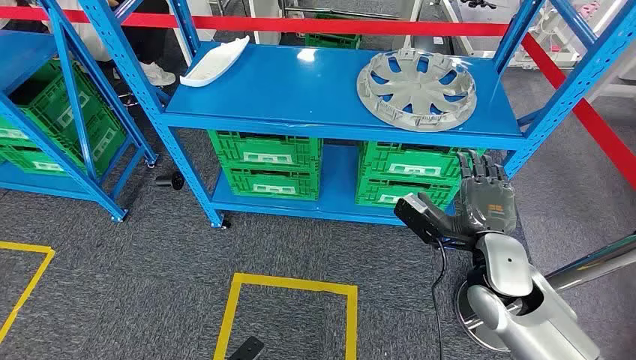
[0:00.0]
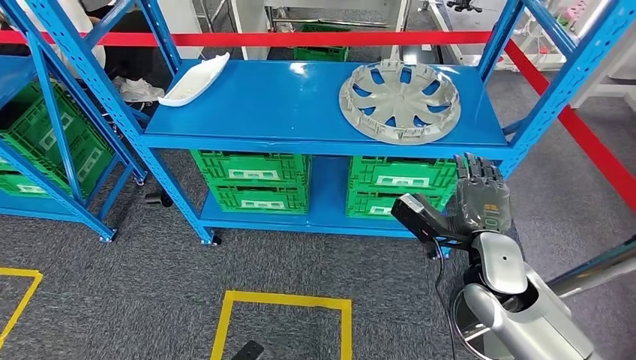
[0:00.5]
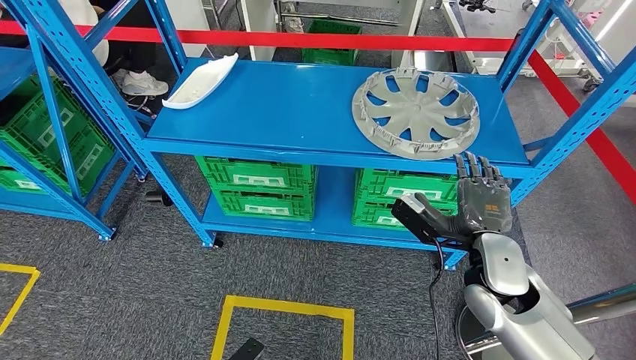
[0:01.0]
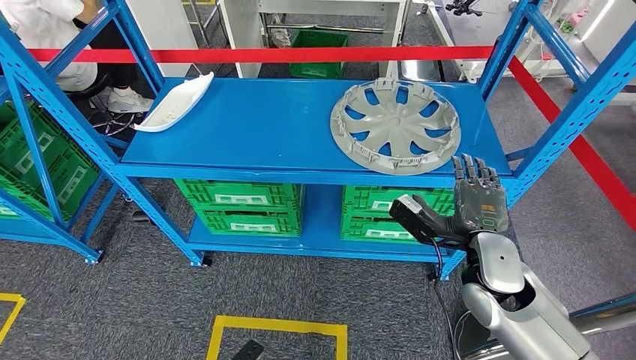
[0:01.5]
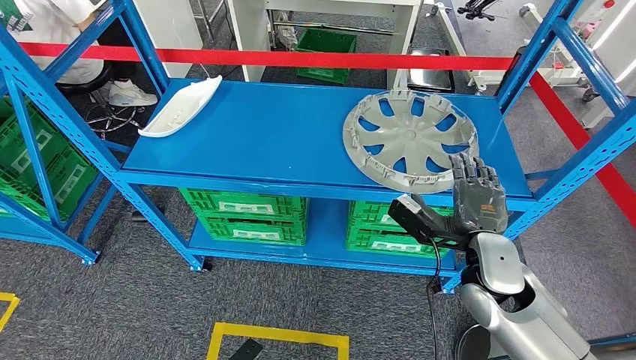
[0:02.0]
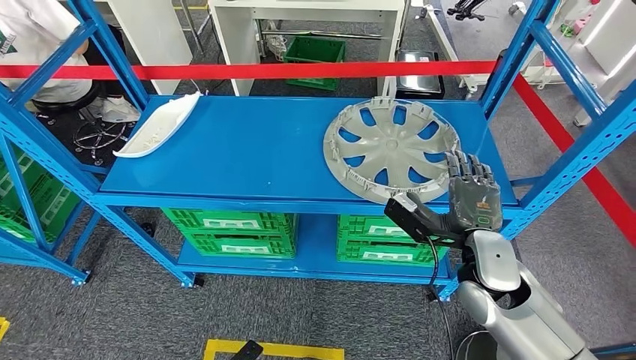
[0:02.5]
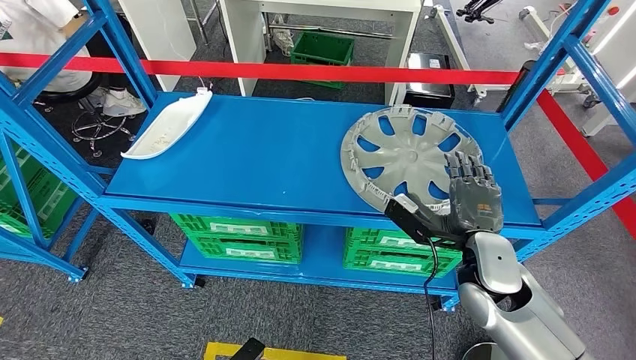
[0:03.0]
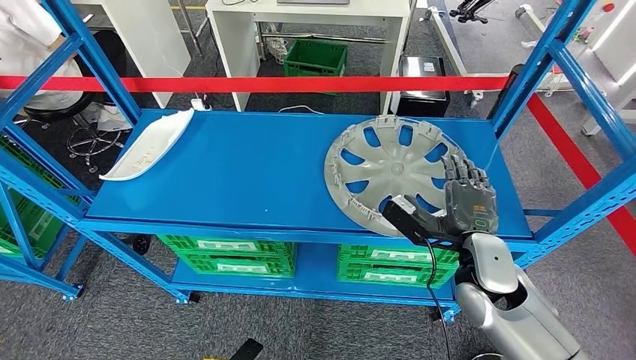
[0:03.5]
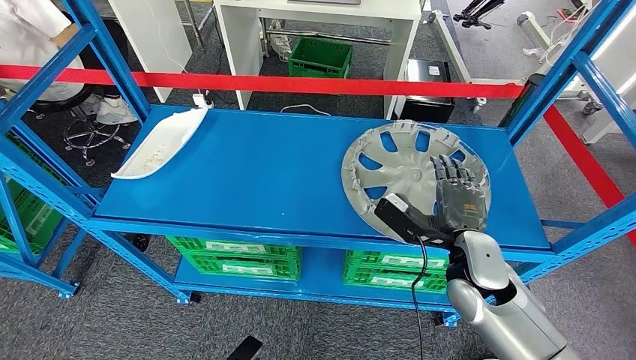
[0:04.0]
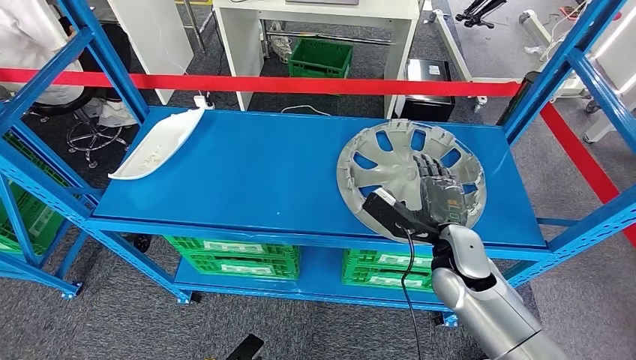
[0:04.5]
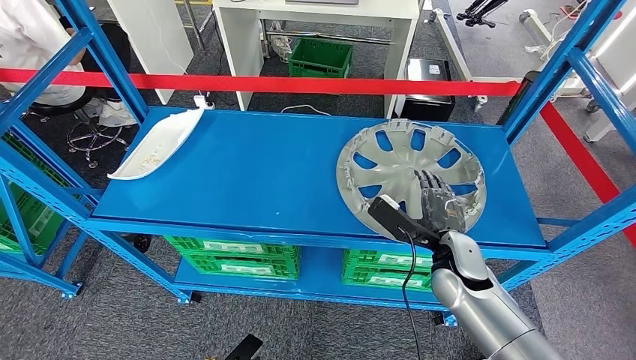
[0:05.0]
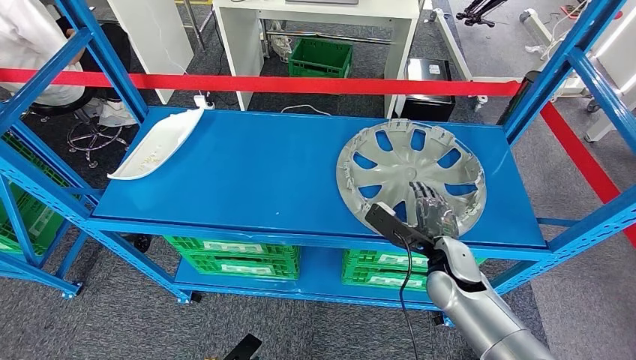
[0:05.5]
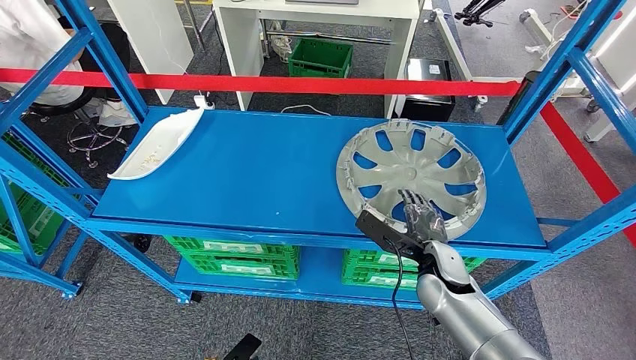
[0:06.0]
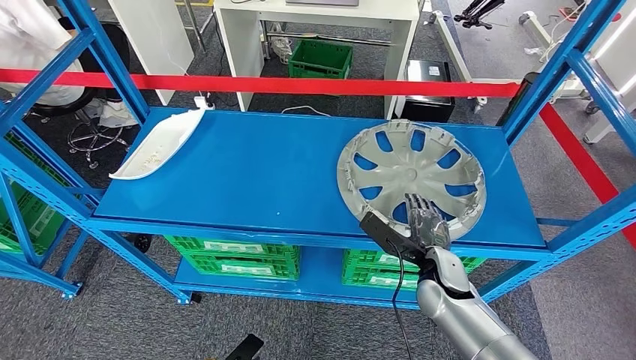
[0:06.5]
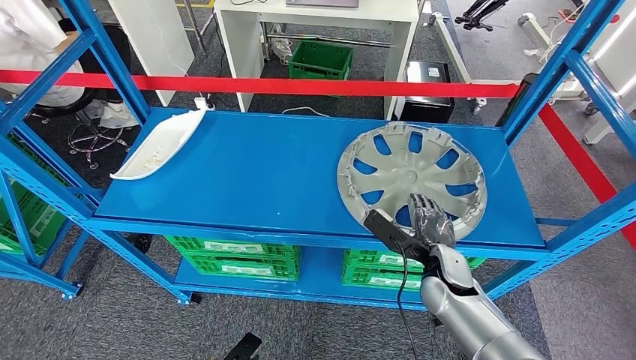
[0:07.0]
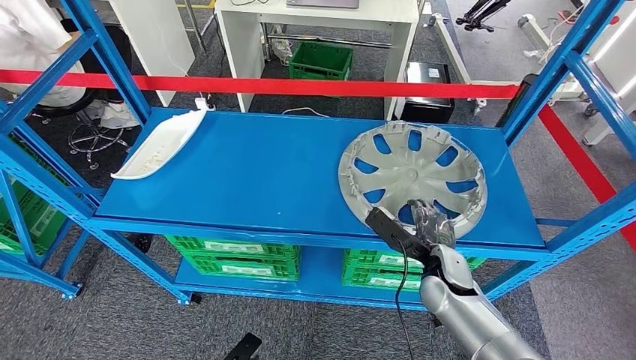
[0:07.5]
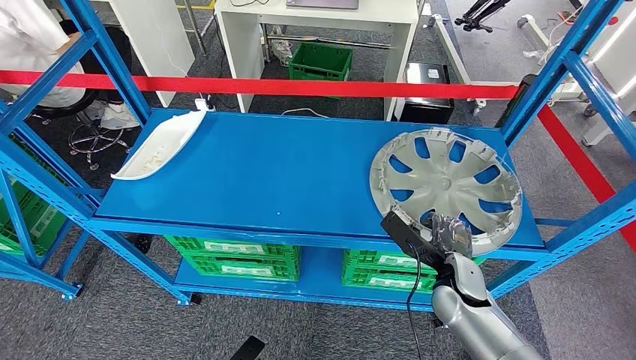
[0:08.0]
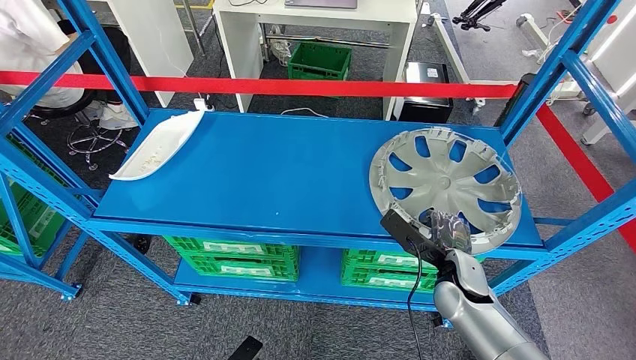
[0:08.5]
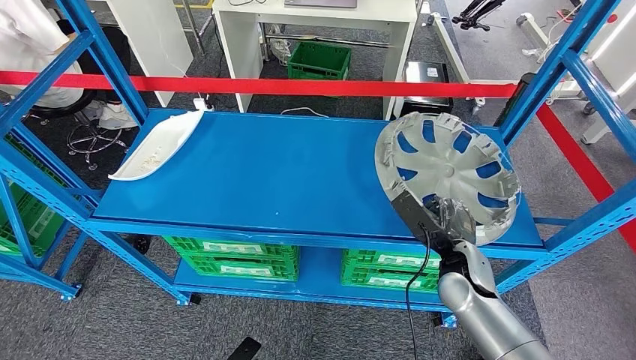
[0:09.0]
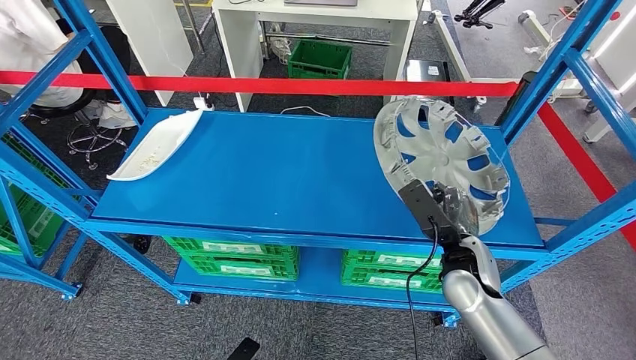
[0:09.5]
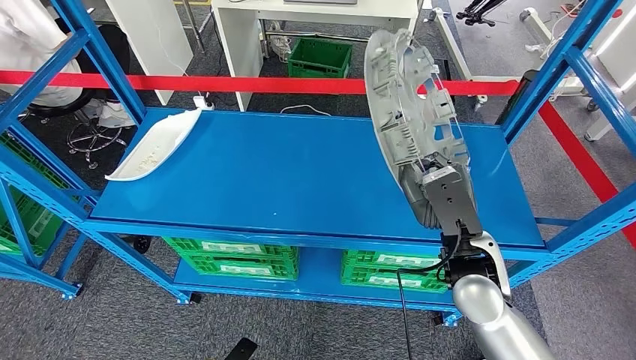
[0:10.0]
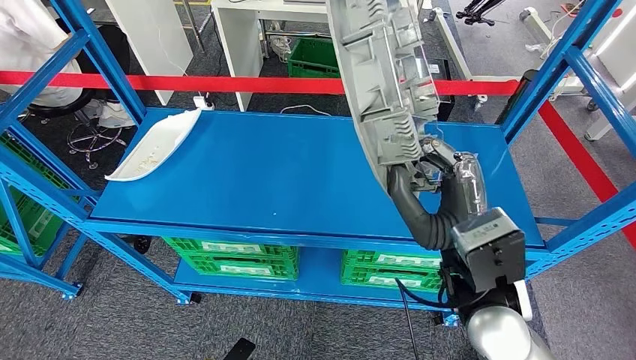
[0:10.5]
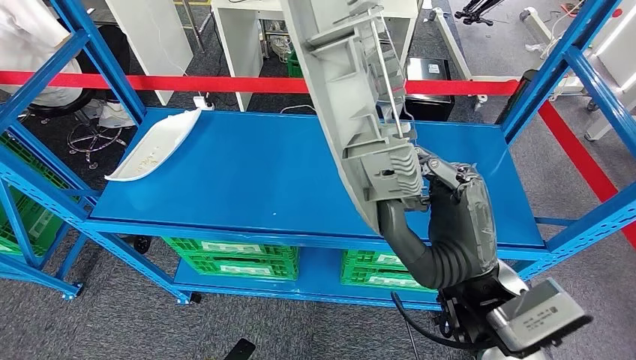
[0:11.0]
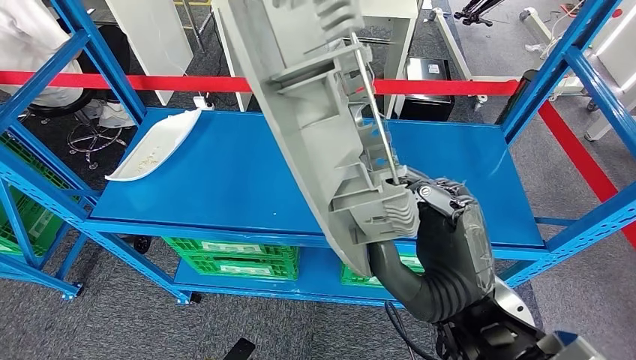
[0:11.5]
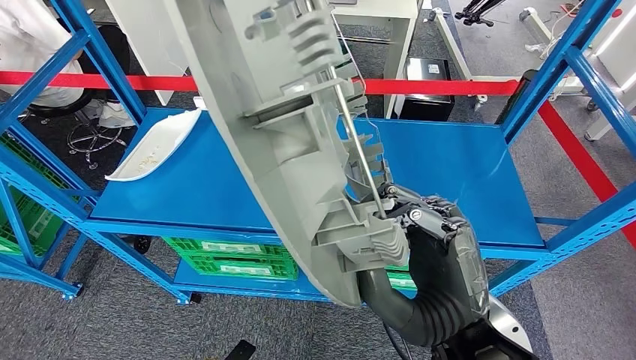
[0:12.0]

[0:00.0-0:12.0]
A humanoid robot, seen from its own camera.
Step, 0:00.0 to 0:10.0: Pick up the large material from the shelf.
0:04.0 to 0:06.0: The right hand shifts about 5 cm downward.

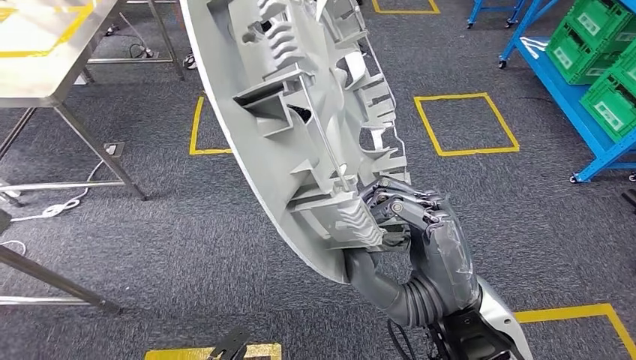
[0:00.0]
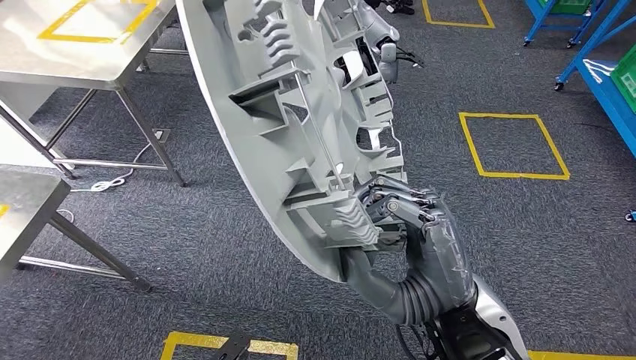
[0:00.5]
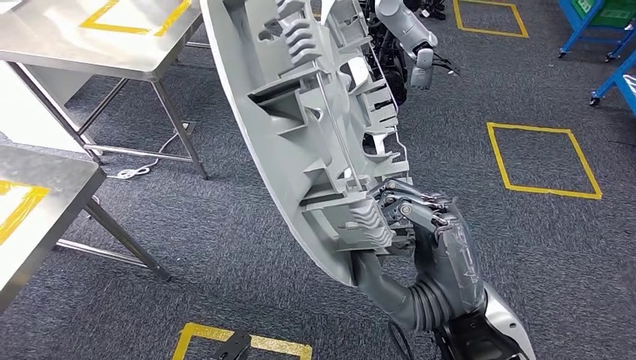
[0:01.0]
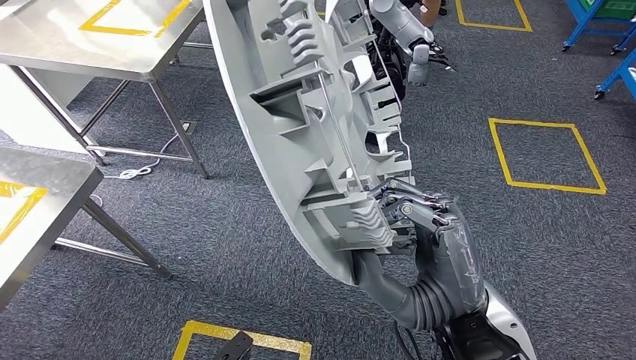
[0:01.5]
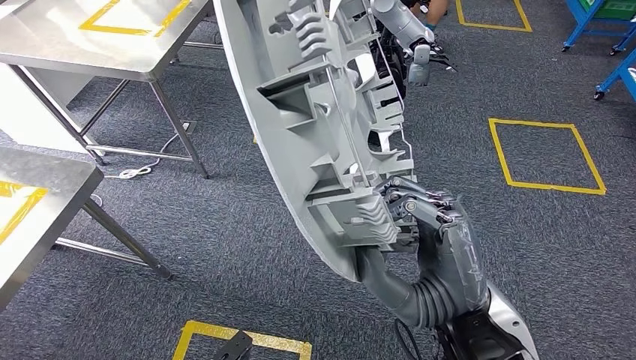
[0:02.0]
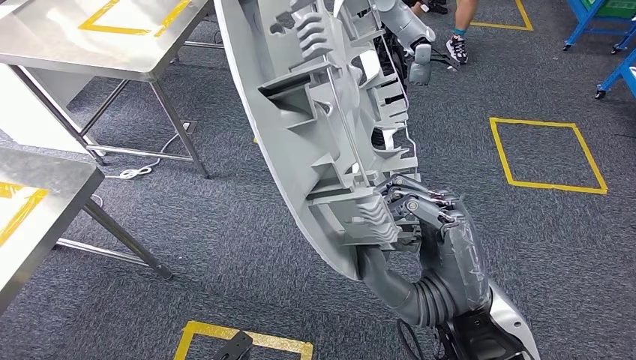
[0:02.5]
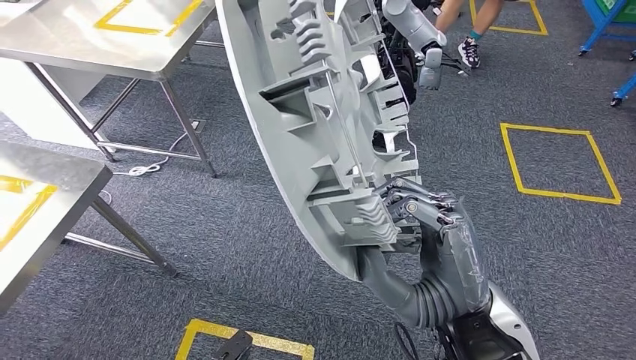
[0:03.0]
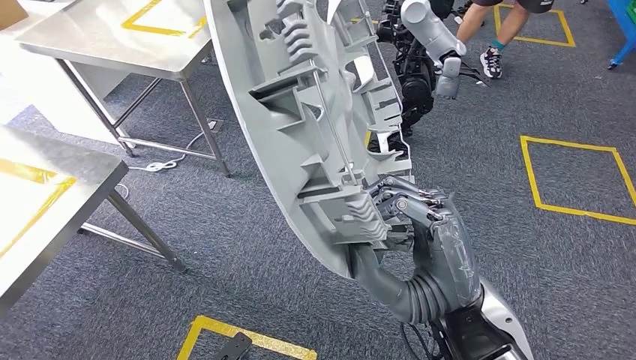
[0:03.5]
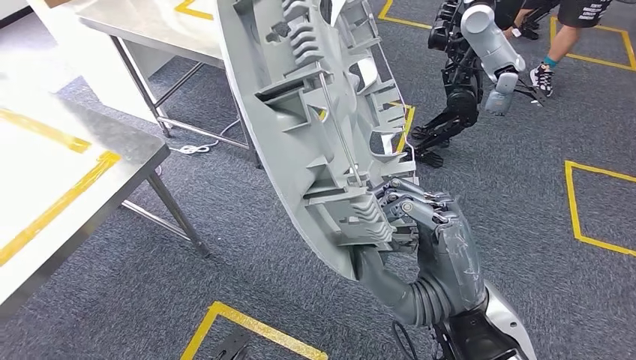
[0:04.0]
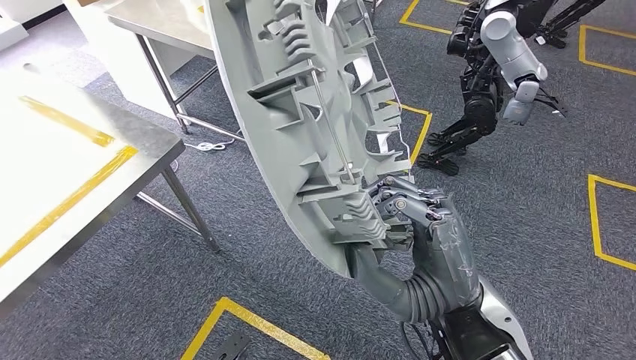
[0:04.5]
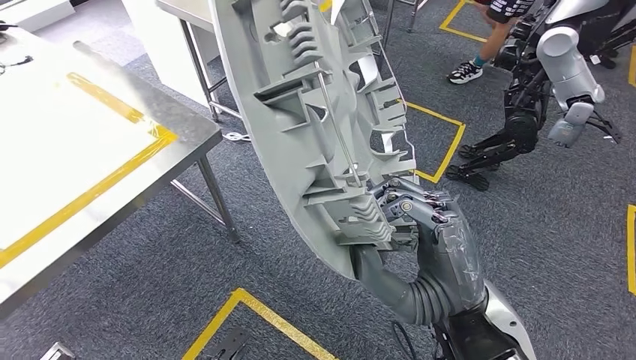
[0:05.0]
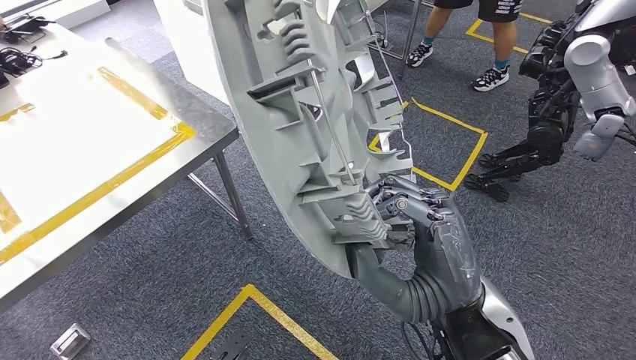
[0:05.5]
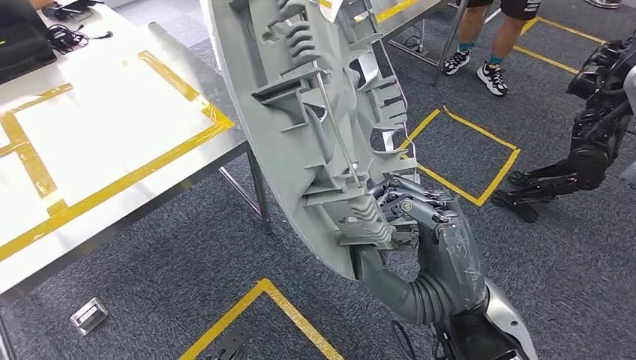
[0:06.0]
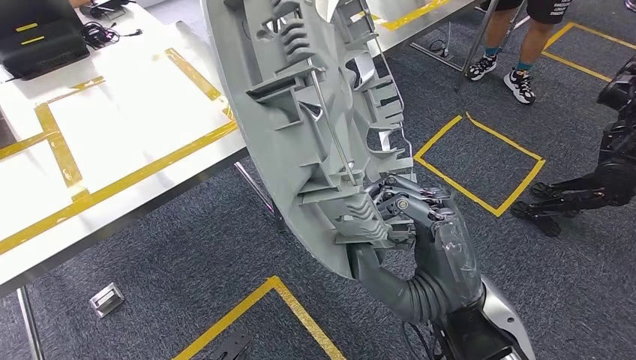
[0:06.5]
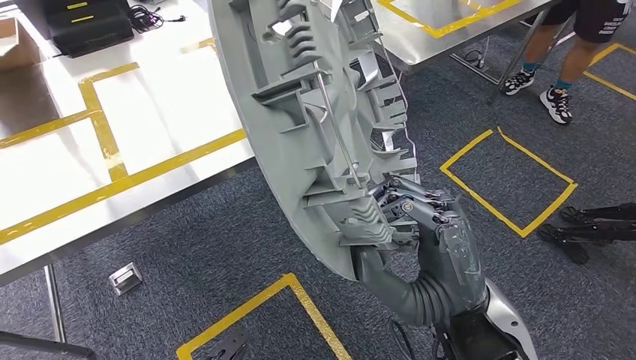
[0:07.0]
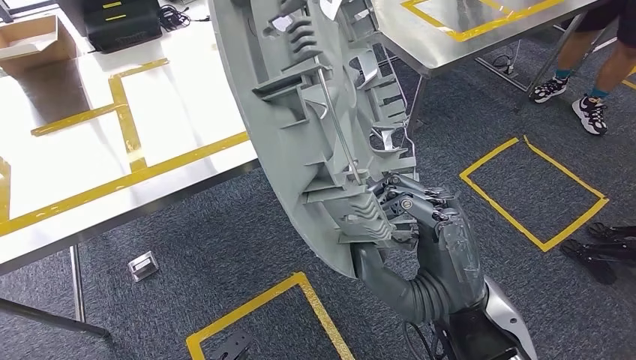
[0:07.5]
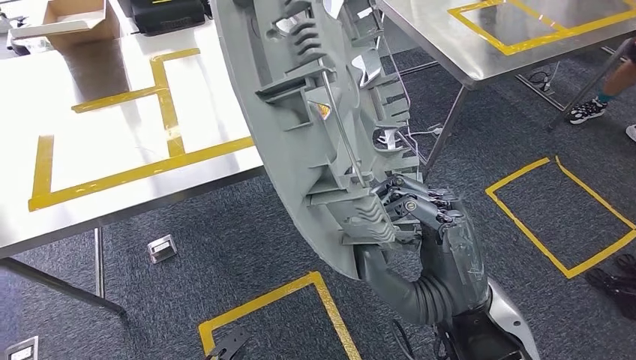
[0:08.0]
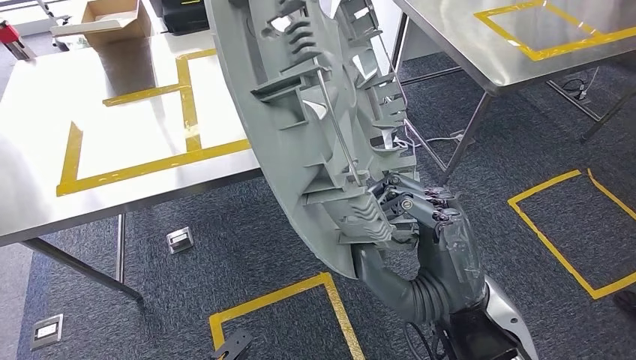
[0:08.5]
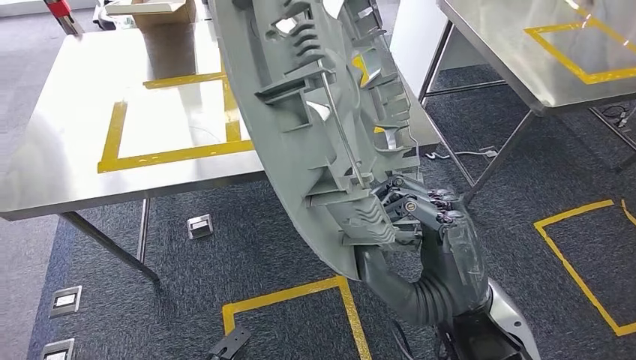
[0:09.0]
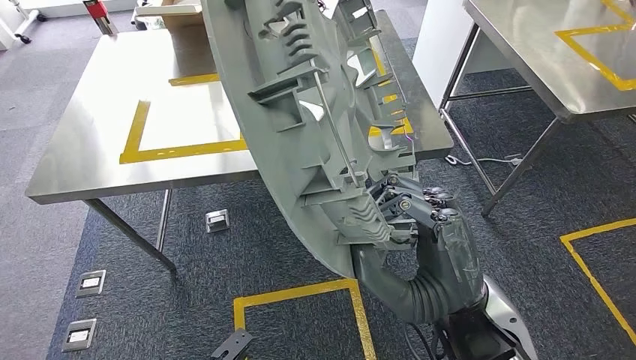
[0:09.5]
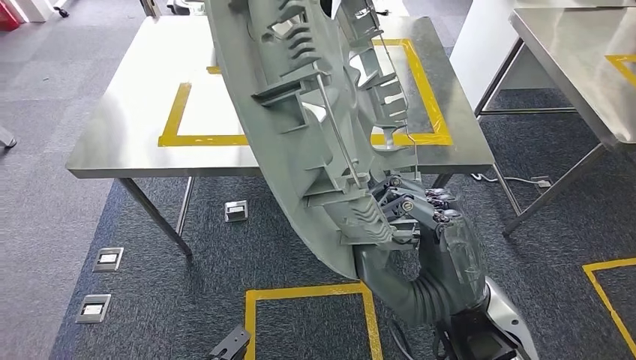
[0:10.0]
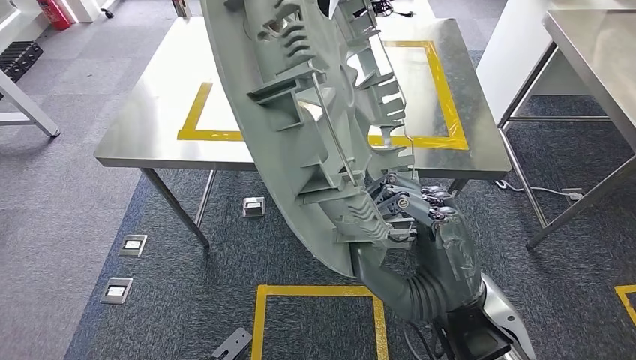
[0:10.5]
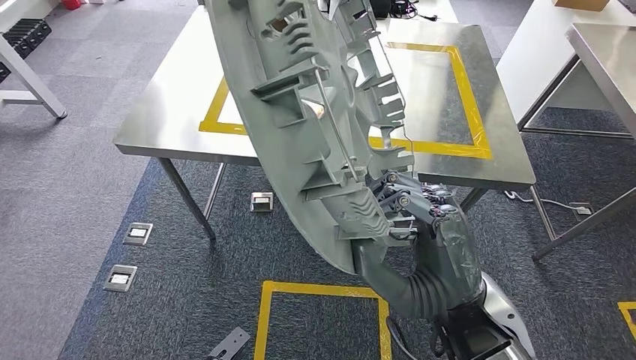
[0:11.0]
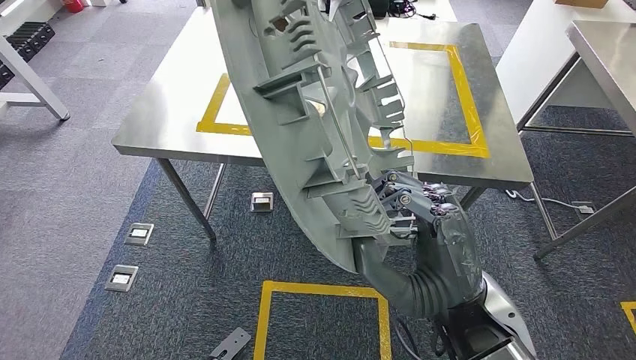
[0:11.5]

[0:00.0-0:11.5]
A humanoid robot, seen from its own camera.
Step, 0:00.0 to 0:10.0: Move the large material to the workbench.
